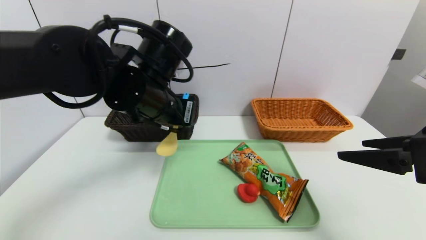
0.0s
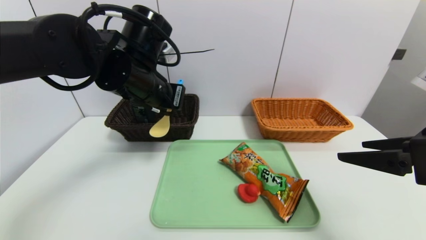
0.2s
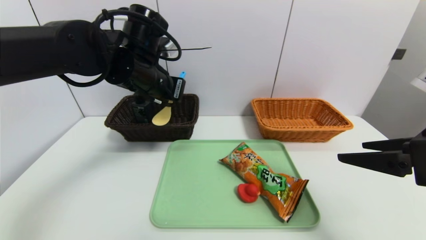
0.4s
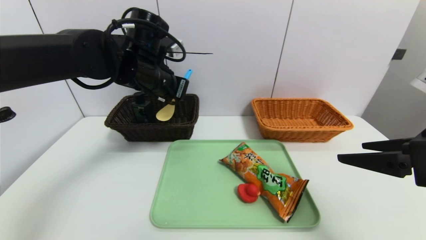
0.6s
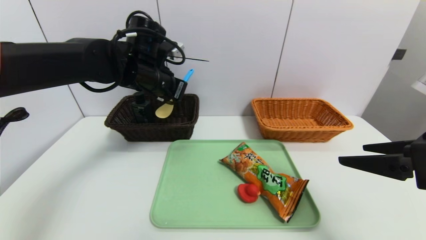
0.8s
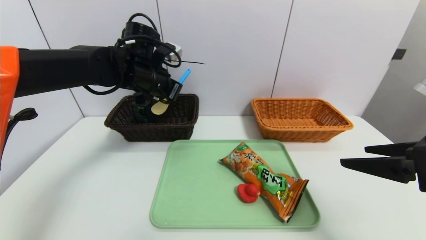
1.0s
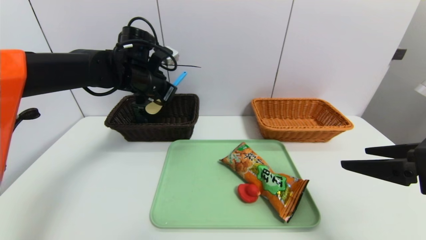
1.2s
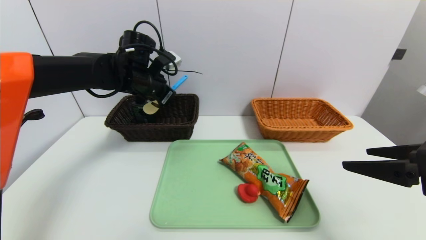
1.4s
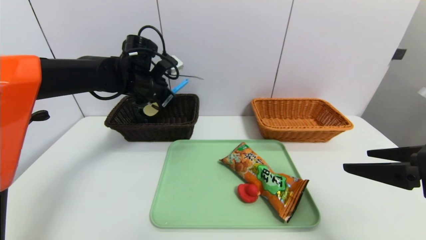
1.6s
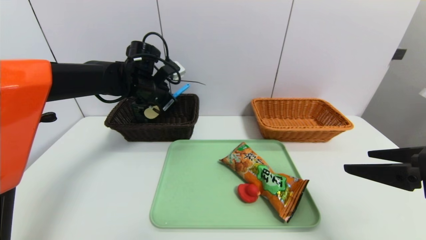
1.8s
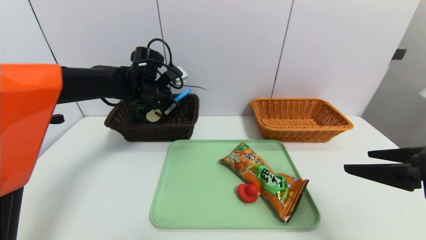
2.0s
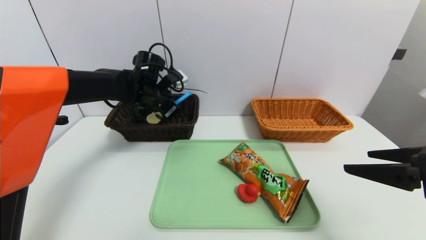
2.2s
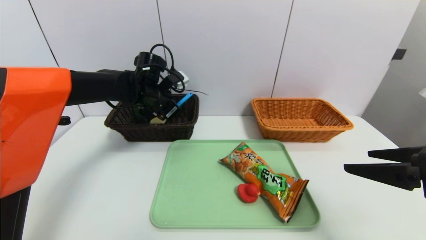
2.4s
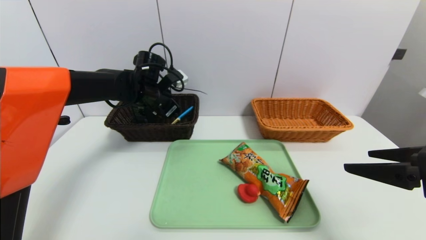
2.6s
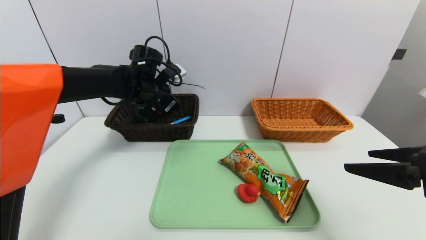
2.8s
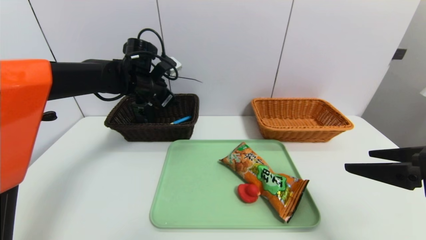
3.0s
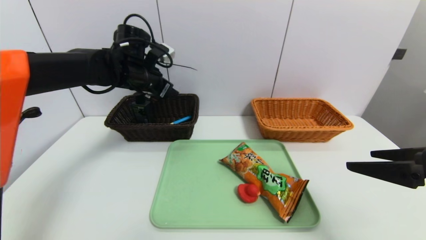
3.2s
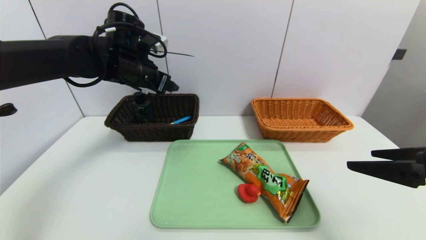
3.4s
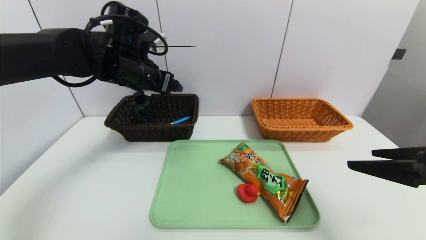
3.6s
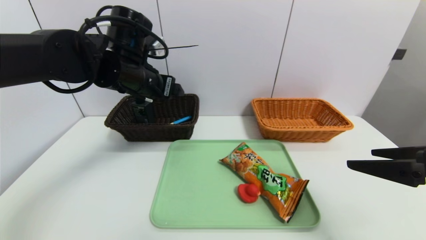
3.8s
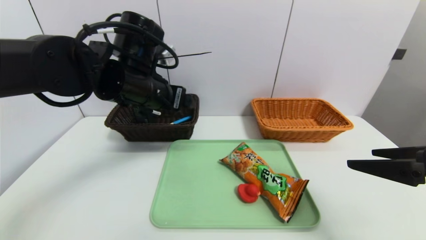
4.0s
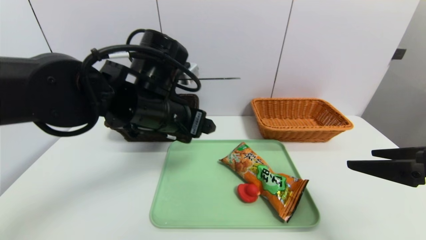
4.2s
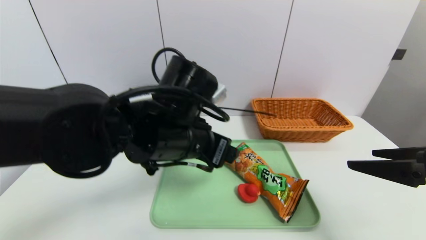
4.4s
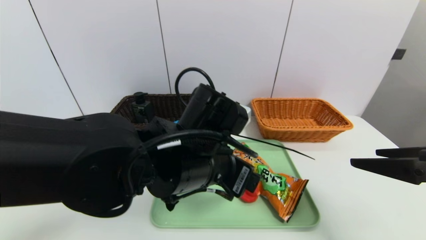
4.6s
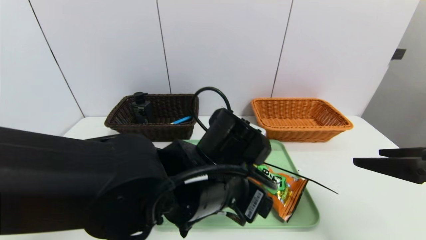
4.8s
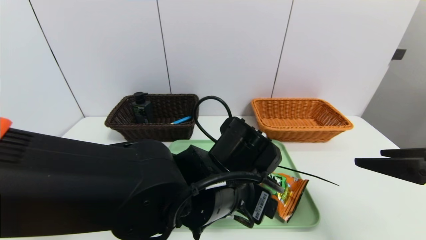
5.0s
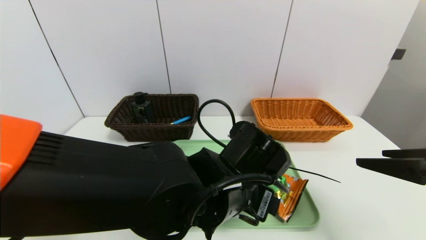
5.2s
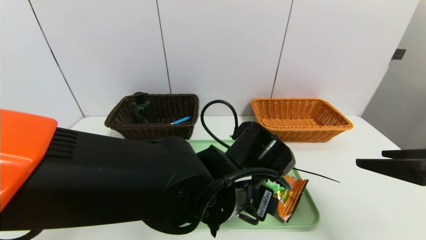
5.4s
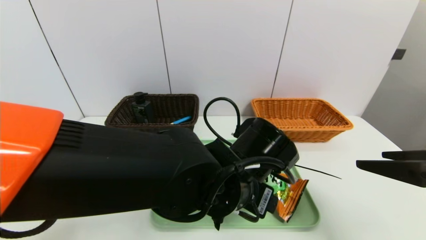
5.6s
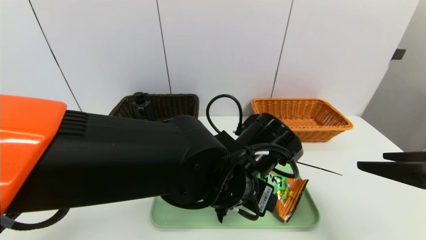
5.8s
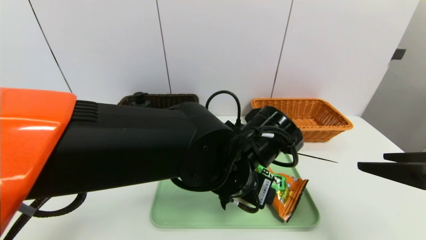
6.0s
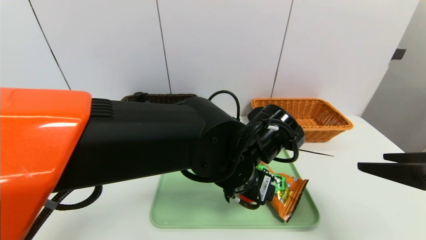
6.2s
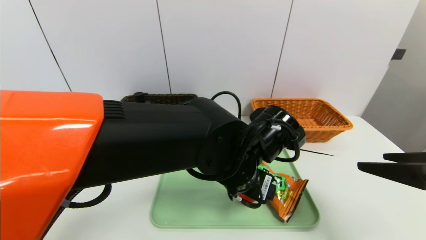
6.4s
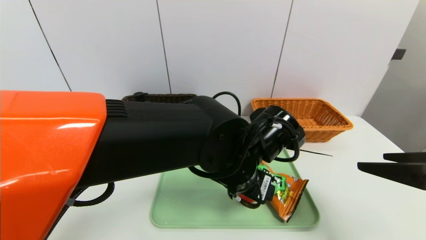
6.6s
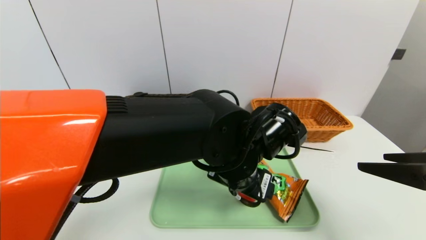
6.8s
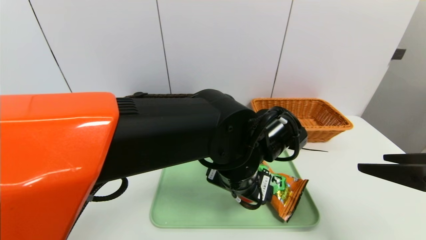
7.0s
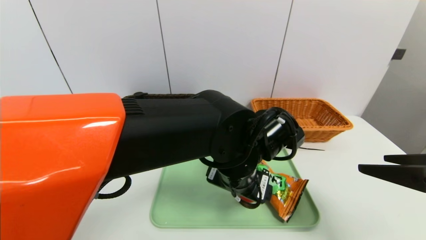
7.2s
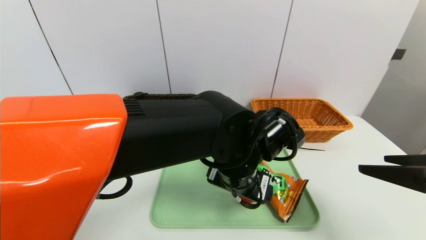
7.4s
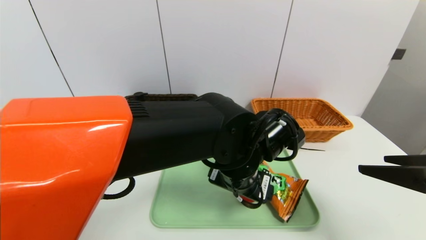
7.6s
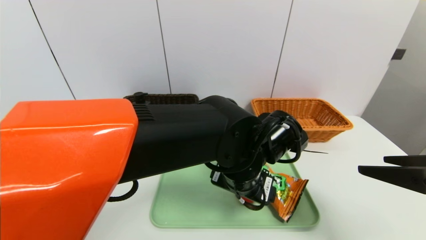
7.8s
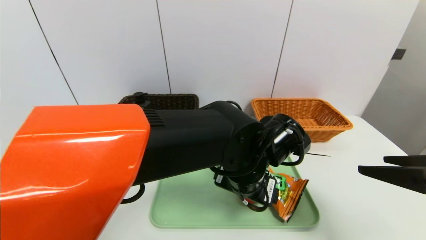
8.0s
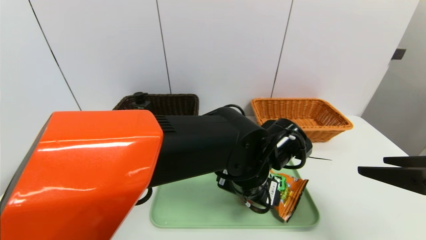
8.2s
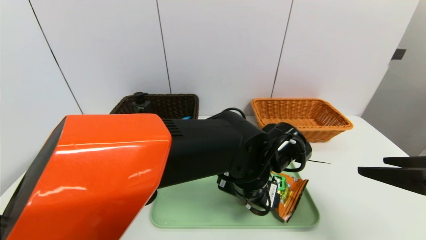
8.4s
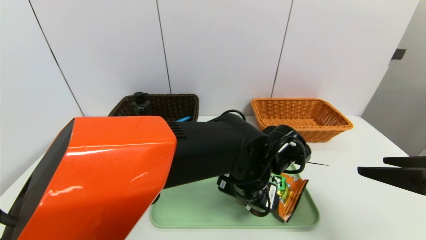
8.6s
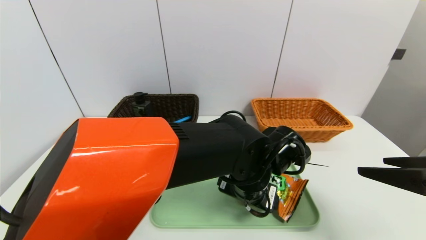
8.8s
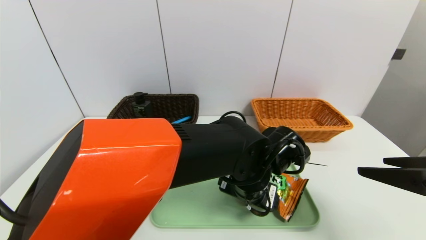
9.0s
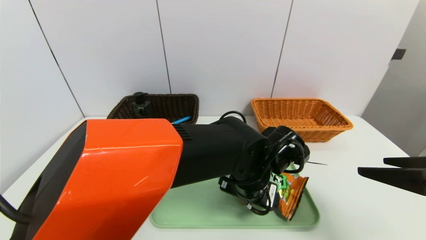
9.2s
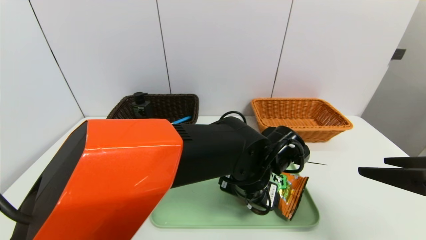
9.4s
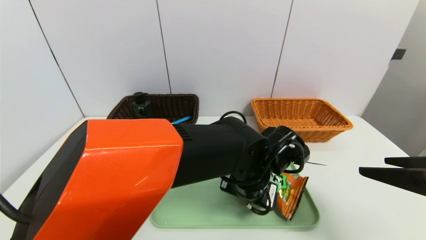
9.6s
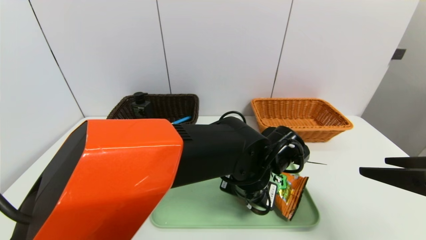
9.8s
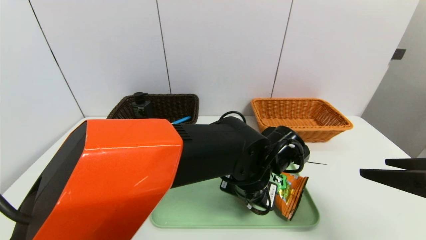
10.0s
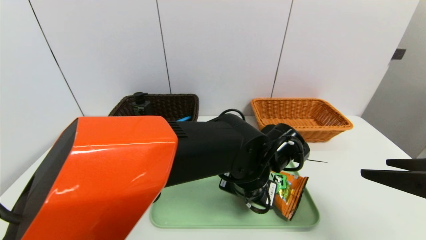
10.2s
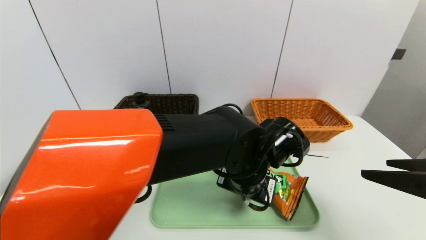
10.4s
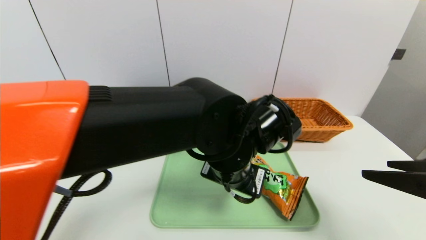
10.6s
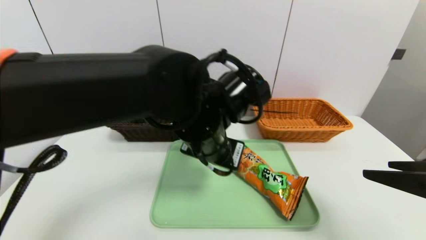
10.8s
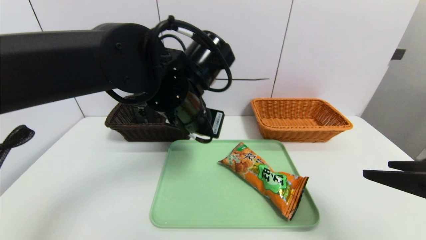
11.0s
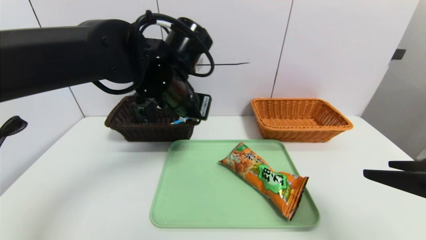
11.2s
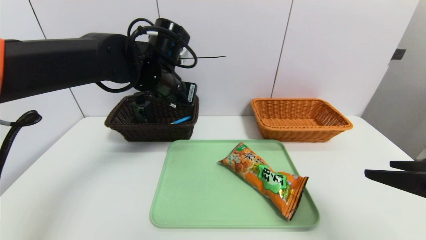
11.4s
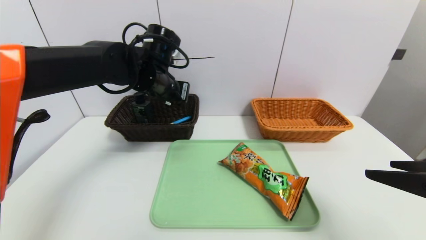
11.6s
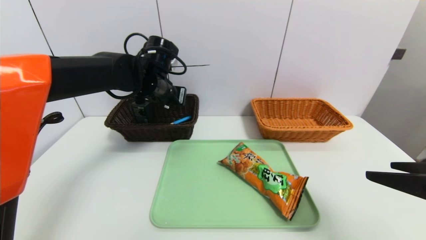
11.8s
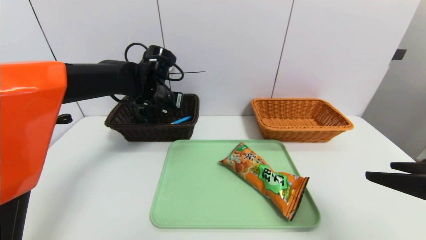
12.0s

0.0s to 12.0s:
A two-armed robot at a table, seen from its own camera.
Task of the whole recording: place the food in the right basket with the right gripper, and place the non food items in the left basket with the left gripper.
Step, 0.0s to 2.8s: Grasp the spoon and put it in the left basket.
0.0s to 1.6s: The left gripper is displaced forward and to the left by about 15 cm.
1.6s to 3.0s: The left gripper opens its fingers.
3.0s to 4.4s: The left gripper travels backward and to the right by approximately 25 cm.
4.4s to 6.0s: The left gripper goes about 10 cm to the right.
6.0s to 7.6s: There are only small adjustments of the grippers.
9.0s to 10.4s: The left gripper closes up.
10.4s to 12.0s: The left gripper travels to the left and forward by some 25 cm.

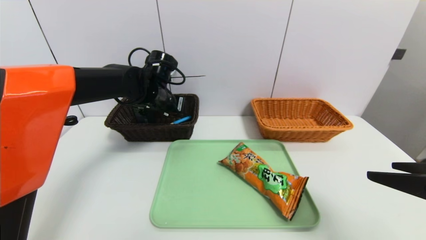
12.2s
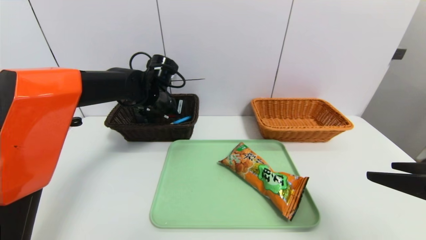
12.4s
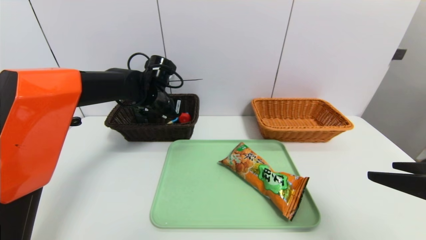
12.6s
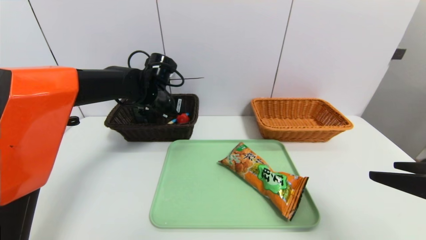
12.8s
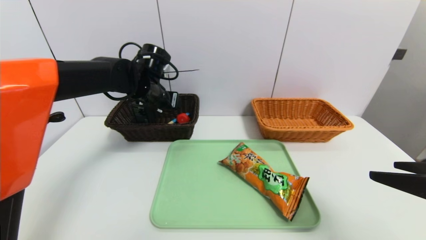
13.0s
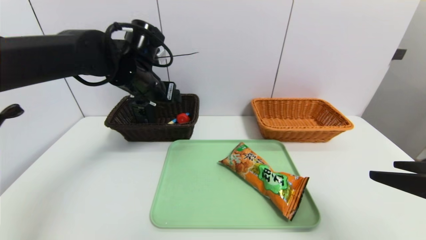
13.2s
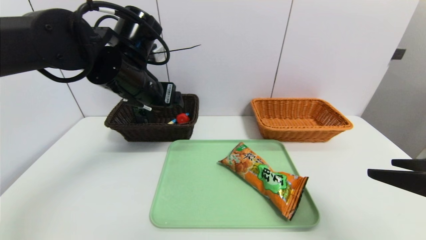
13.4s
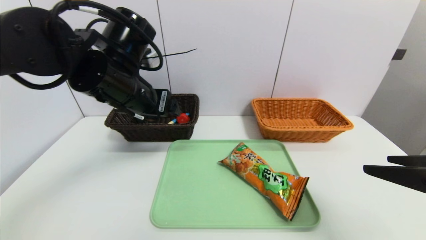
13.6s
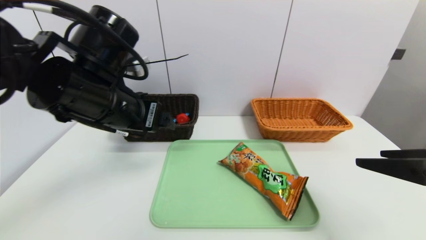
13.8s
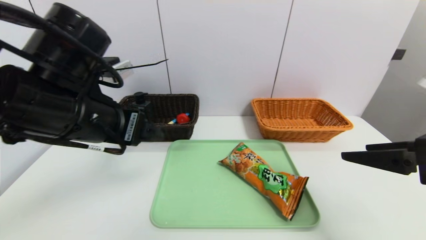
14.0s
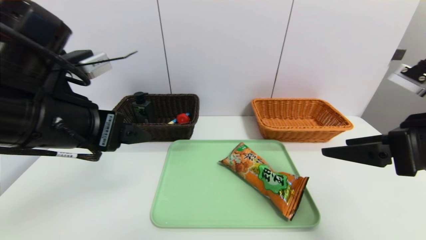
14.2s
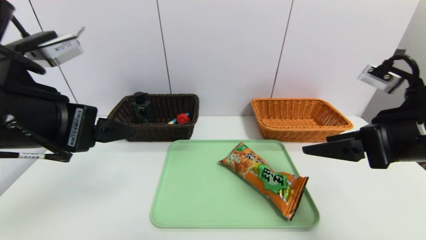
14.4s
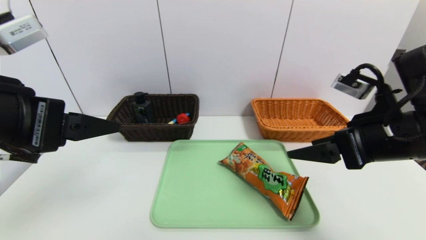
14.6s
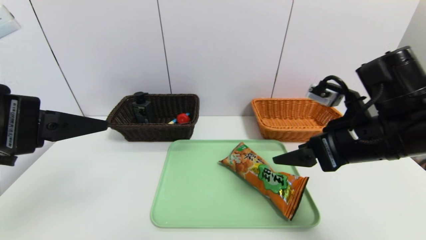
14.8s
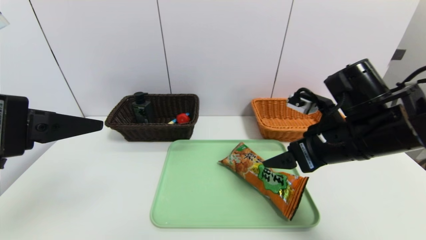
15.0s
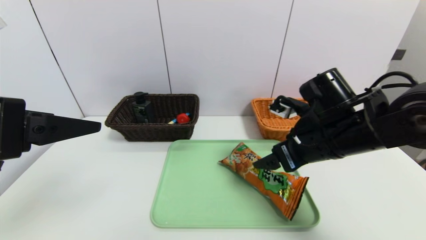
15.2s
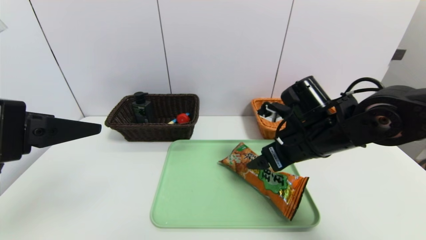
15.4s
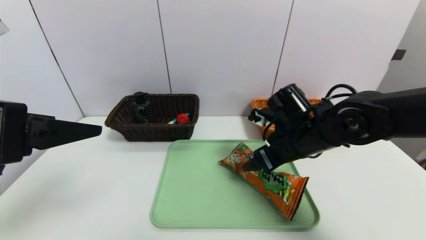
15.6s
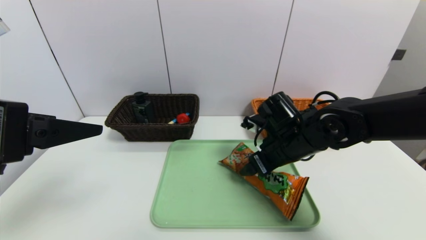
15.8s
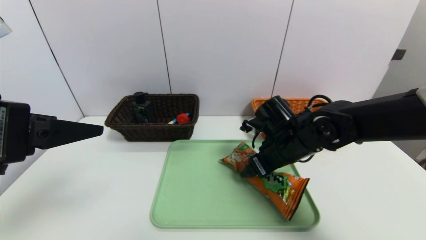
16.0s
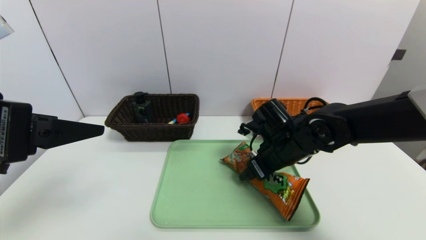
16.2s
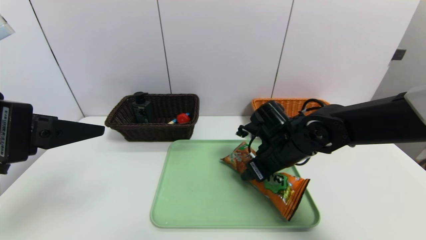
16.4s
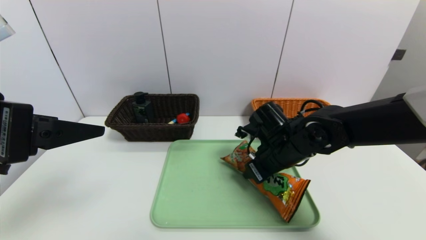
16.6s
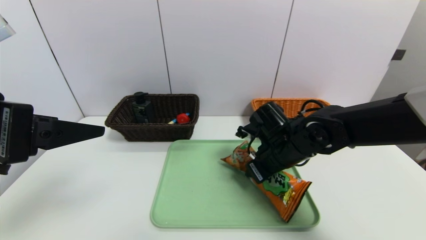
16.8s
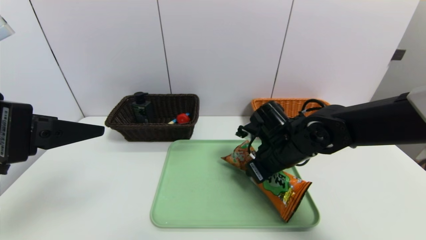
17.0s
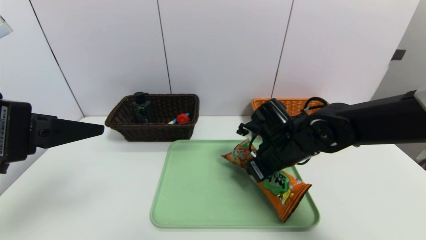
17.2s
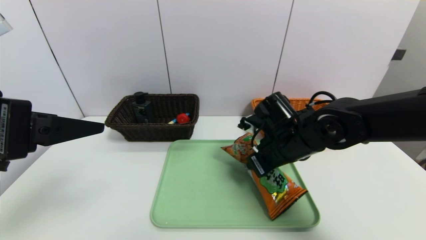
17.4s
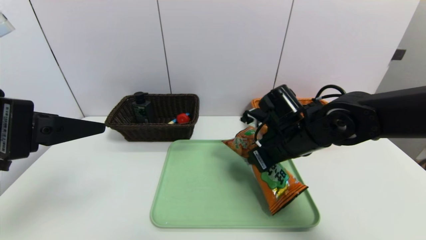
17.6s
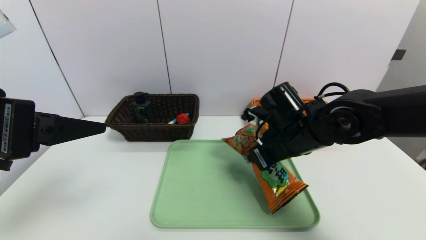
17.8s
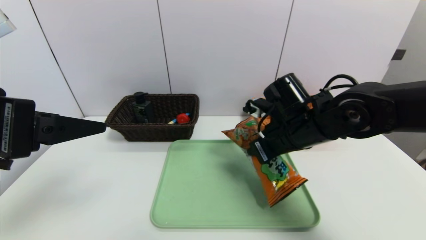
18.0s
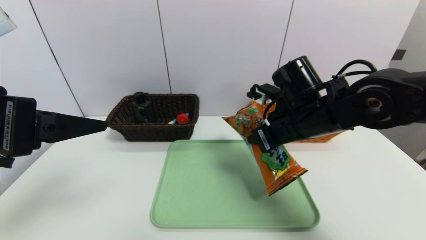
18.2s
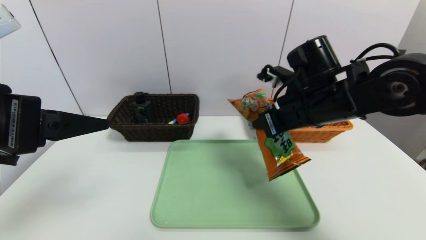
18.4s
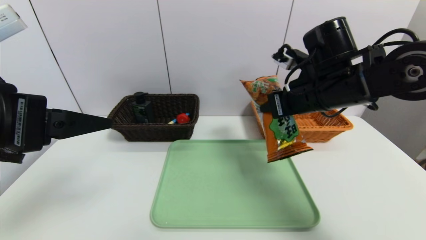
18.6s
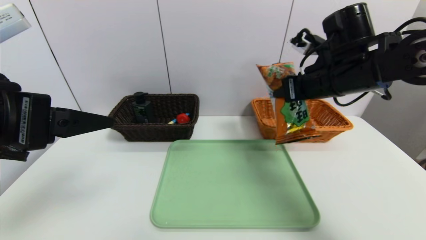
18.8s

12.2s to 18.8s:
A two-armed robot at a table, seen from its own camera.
Task of the whole recording: place the food in the right basket with the right gripper, and place the non food items in the left basket with the left gripper.
12.2s to 13.8s: The left gripper shifts about 20 cm backward and upward, and opens.
13.8s to 15.4s: The right gripper is displaced forward, to the left and downward by approximately 20 cm. Meanwhile the left gripper is displaced backward and to the left by approximately 15 cm.
15.4s to 17.2s: The right gripper ends up about 5 cm from where it was, and closes.
17.2s to 18.8s: The right gripper goes about 15 cm upward and to the right.
